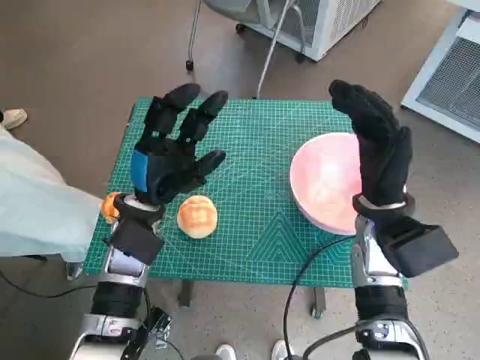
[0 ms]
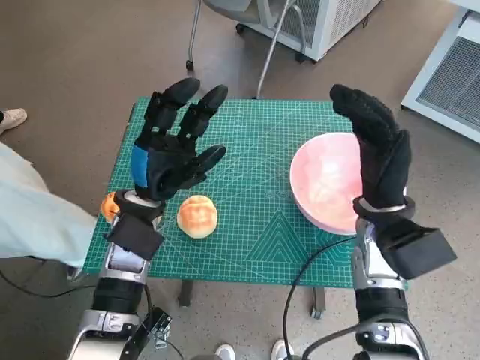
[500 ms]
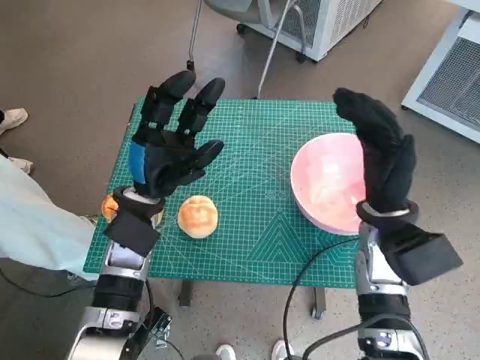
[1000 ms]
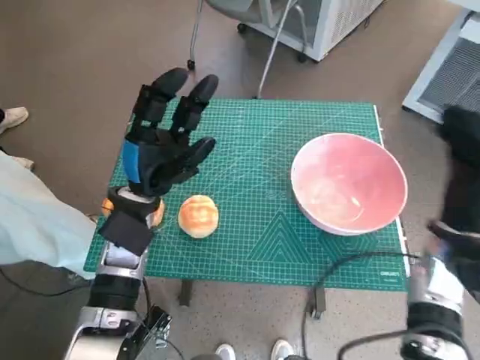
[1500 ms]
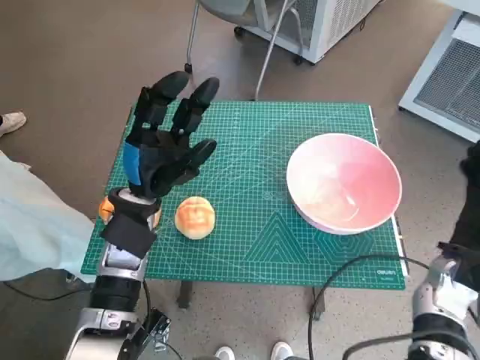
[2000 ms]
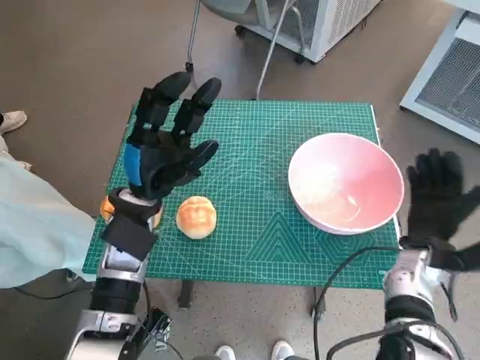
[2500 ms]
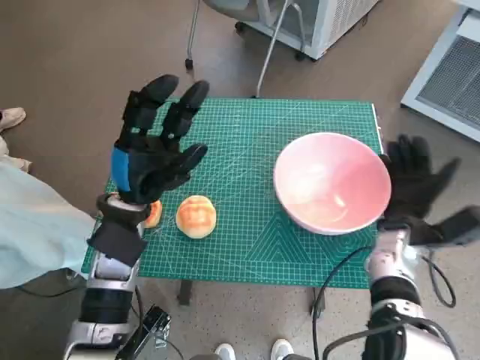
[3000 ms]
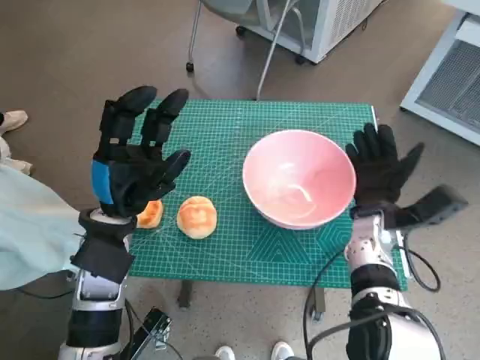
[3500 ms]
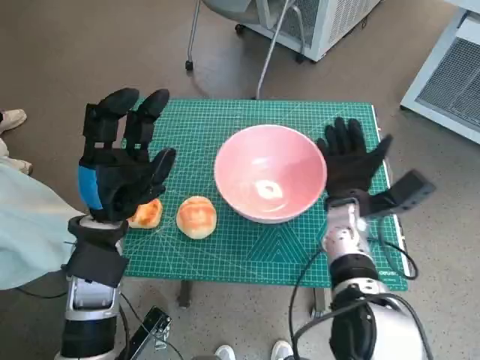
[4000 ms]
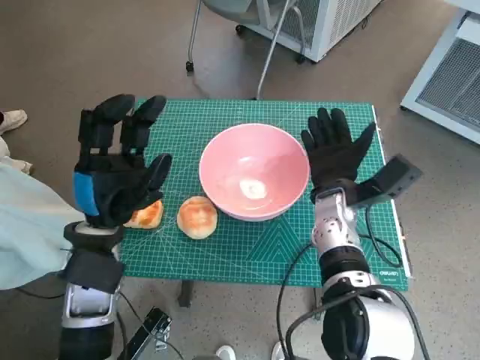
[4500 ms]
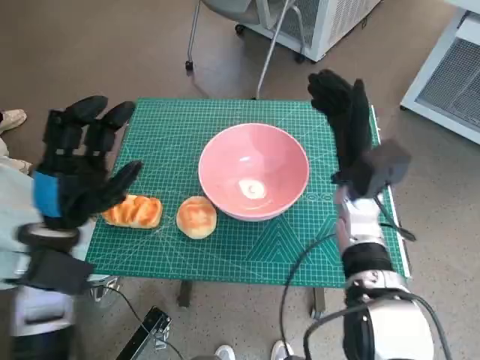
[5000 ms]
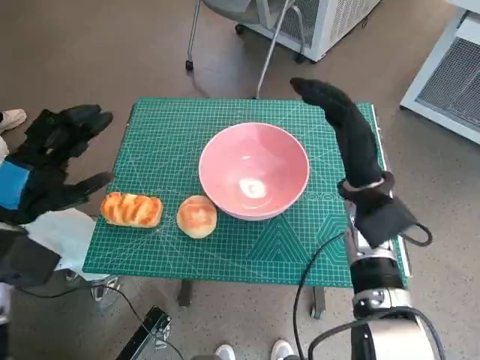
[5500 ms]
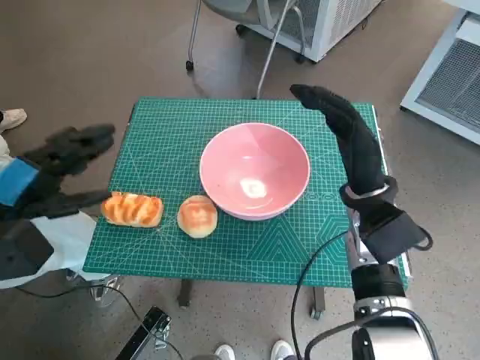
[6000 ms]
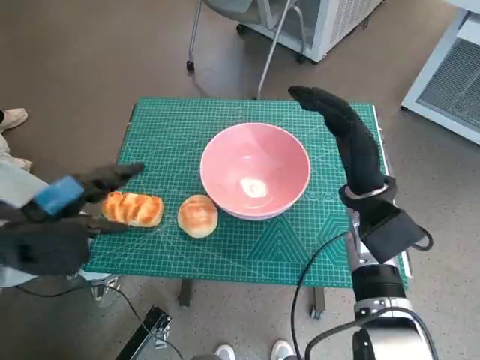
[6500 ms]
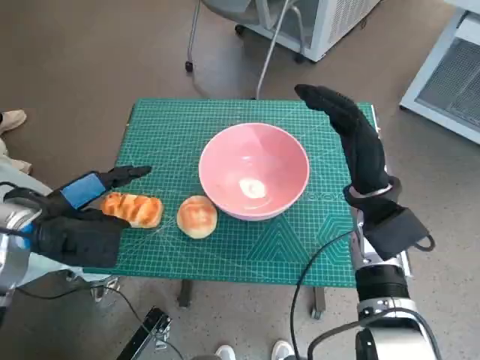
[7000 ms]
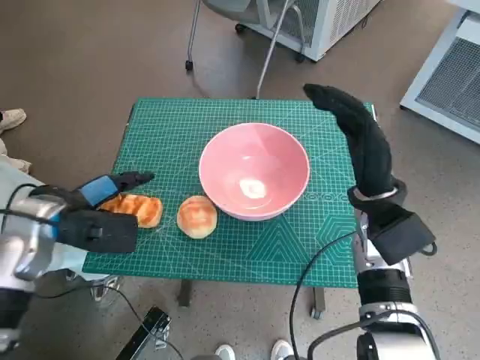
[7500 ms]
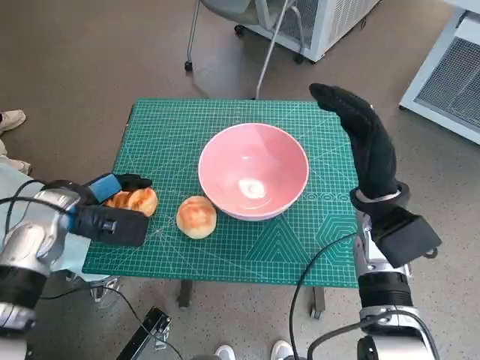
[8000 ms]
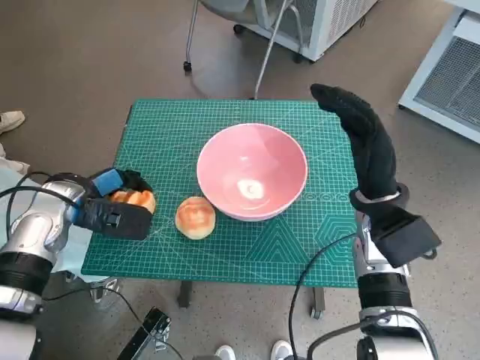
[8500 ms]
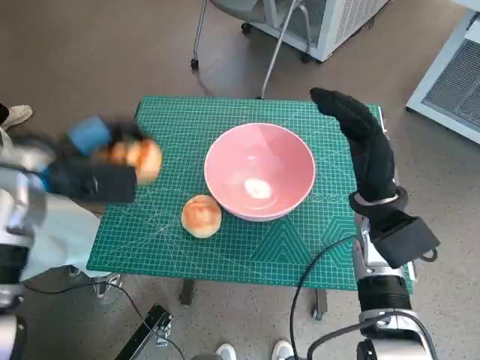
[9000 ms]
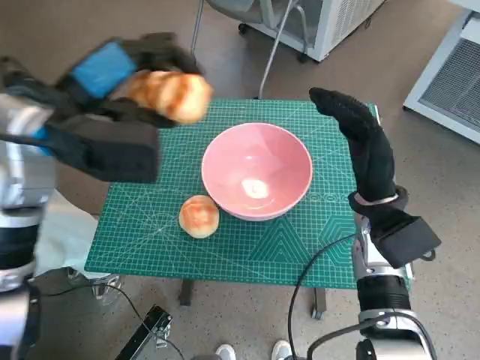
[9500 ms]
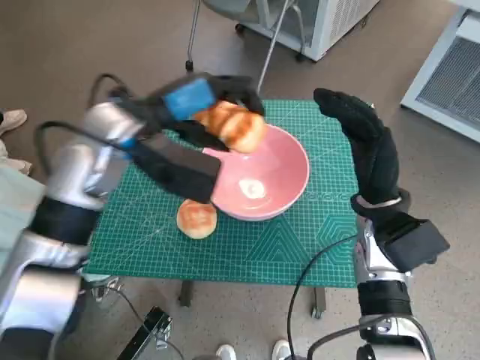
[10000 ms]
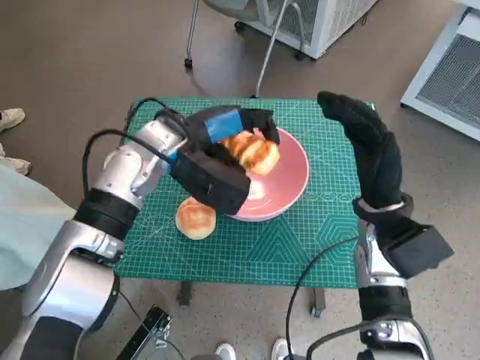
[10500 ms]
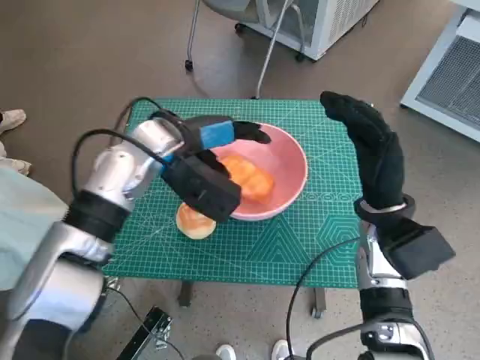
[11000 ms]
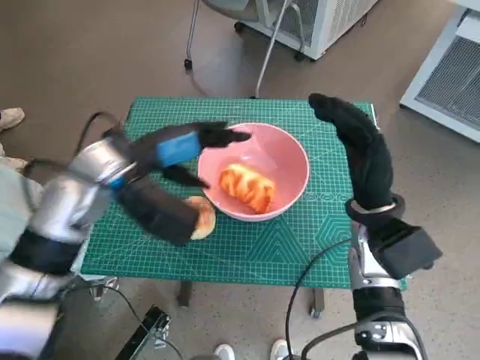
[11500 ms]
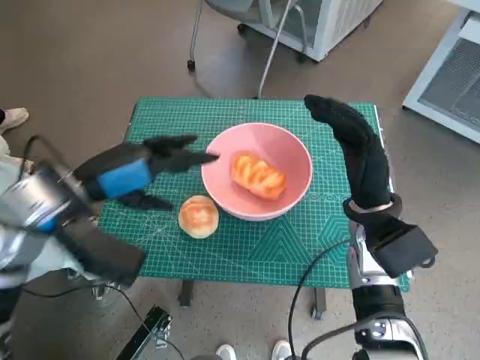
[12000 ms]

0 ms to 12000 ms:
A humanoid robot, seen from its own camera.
Task of the whole recording: Push the bowl to the center of the table and put the bread into the bowl.
Step, 0 ms to 4500 ms: Move the pink bowl to the center of table with right hand.
Step, 5000 ms to 8000 ms: Grasp the long bread with left hand.
Step, 8500 ms to 11000 ms: Place the long bread in pink bowl with left hand.
2000 ms to 4000 ms: The right hand shifts about 15 cm to the left and forward. The left hand shifts by some 5 cm.
4000 ms to 6000 ms: The right hand shifts roughly 5 cm upward. Meanwhile the left hand moves to the left and upward, about 15 cm.
6000 ms to 8000 ms: The left hand shifts roughly 10 cm forward and downward.
8000 ms to 10000 ms: The left hand travels to the right and upward by approximately 15 cm.
10000 ms to 12000 ms: The left hand goes about 10 cm backward and to the left.

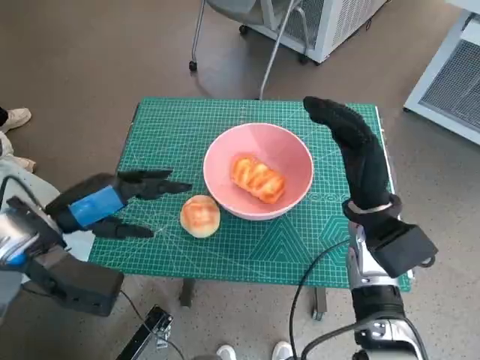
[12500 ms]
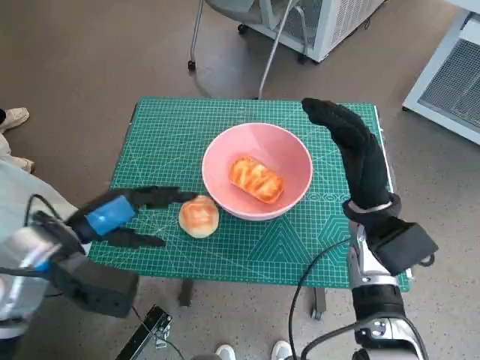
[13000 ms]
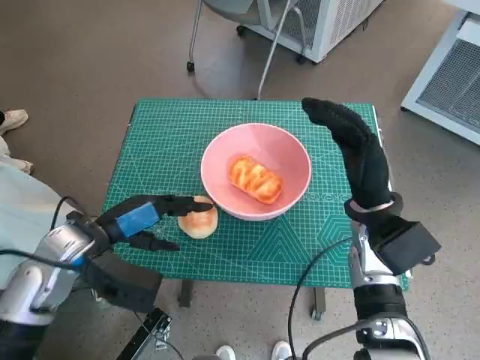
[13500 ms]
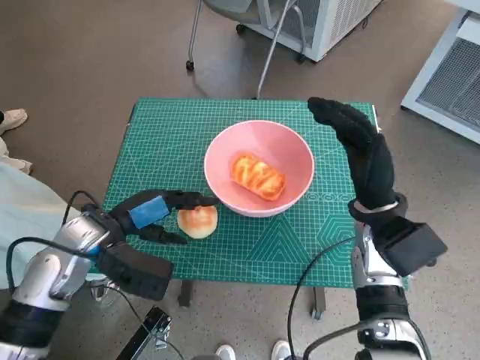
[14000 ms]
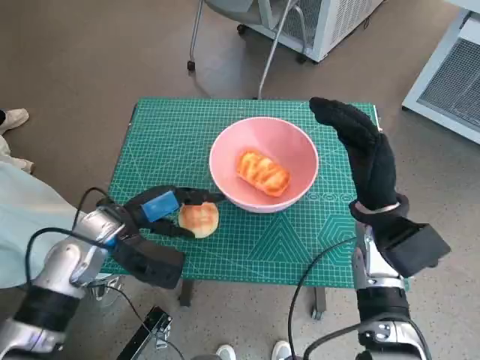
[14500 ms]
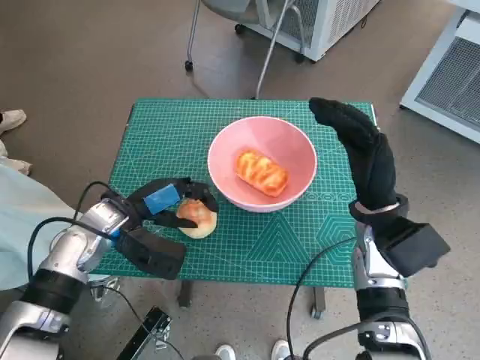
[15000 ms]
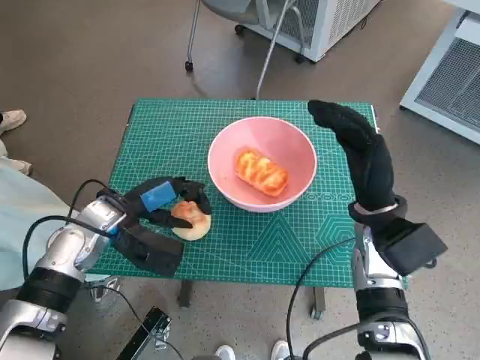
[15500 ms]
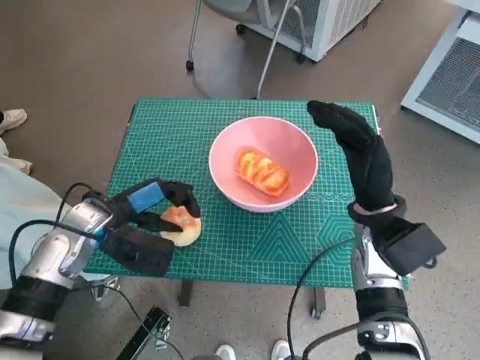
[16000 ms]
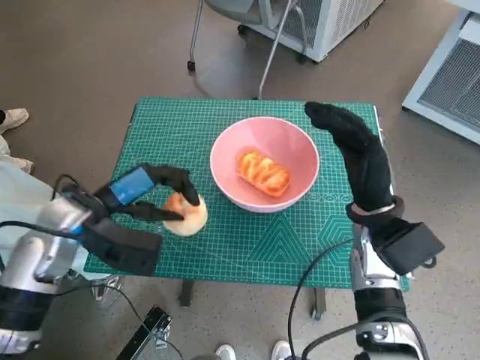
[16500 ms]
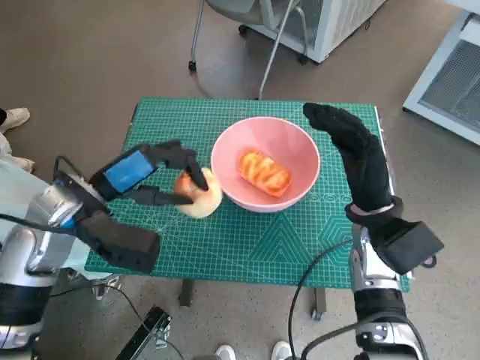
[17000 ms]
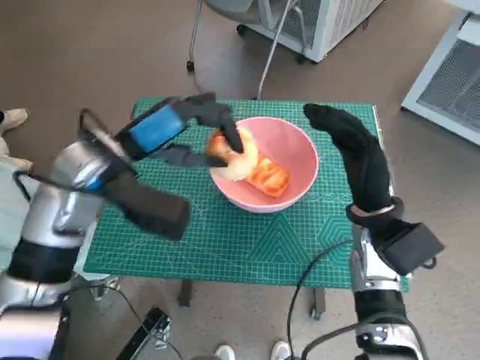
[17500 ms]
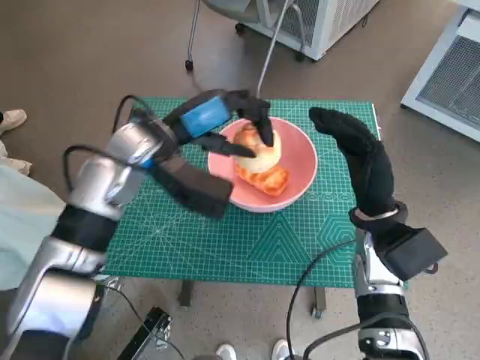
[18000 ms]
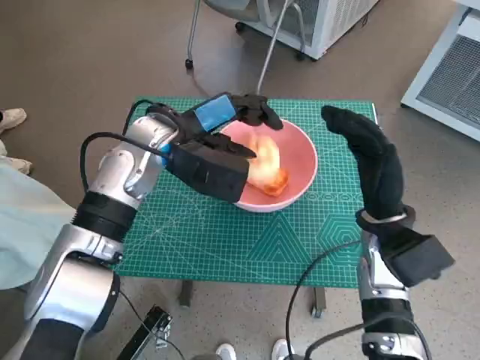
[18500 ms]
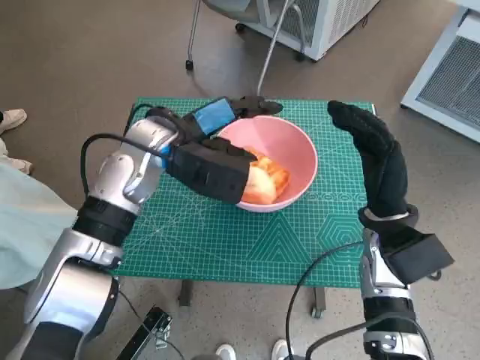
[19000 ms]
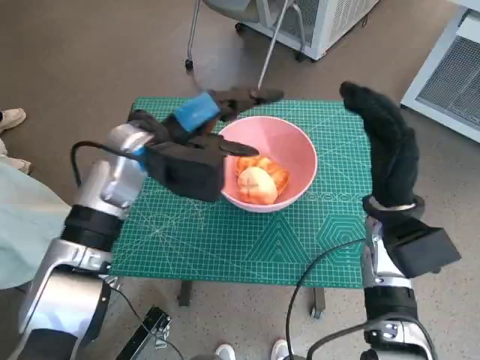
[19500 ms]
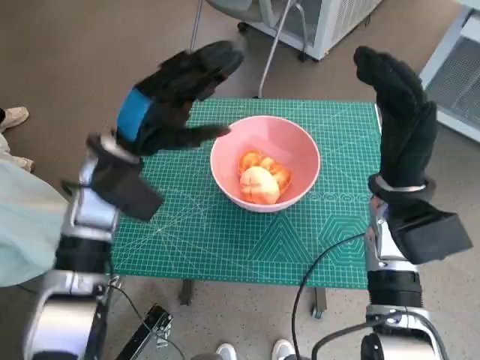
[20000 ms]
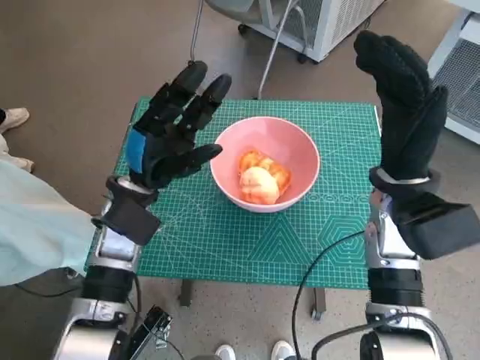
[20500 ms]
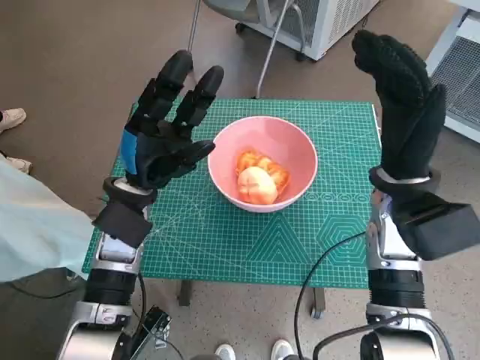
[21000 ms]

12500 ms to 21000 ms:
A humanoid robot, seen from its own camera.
Task of the whole recording: Push the bowl to the center of the table and put the bread into the bowl.
Step, 12500 ms to 15000 ms: Grasp the round bread with left hand.
Step, 15500 ms to 19000 ms: Place the round bread in pink bowl with left hand.
12500 ms to 14500 ms: The left hand is displaced downward by approximately 10 cm.
14500 ms to 16500 ms: The hands make only small movements.
16500 ms to 19000 ms: The left hand shifts some 15 cm to the right, forward and upward.
19000 ms to 21000 ms: The left hand moves downward and backward, about 10 cm; the right hand goes approximately 5 cm upward.

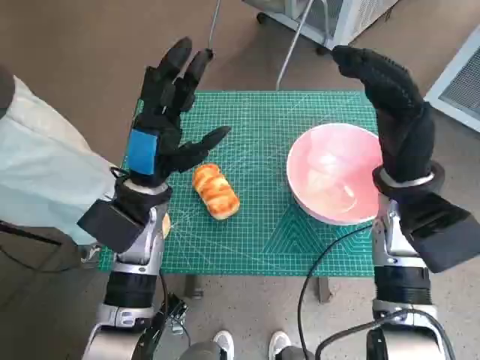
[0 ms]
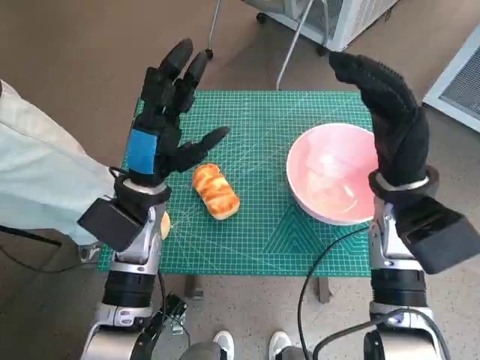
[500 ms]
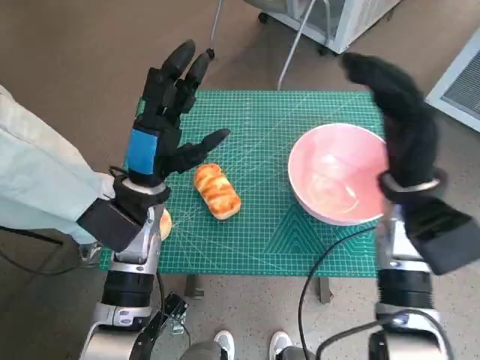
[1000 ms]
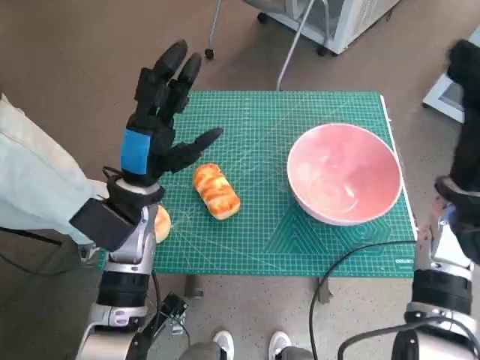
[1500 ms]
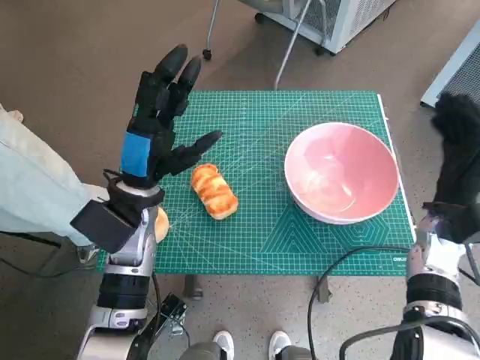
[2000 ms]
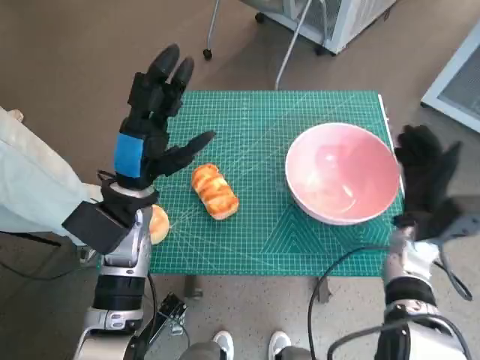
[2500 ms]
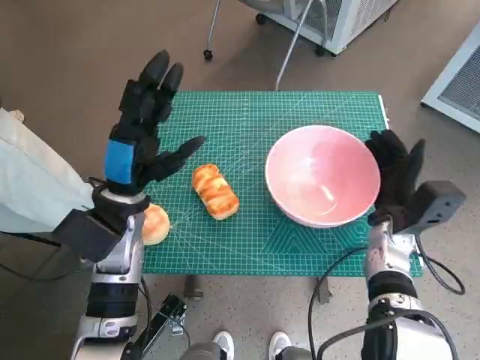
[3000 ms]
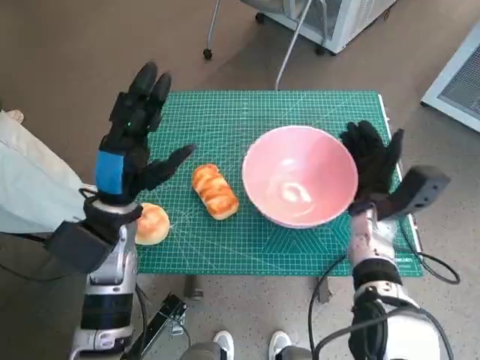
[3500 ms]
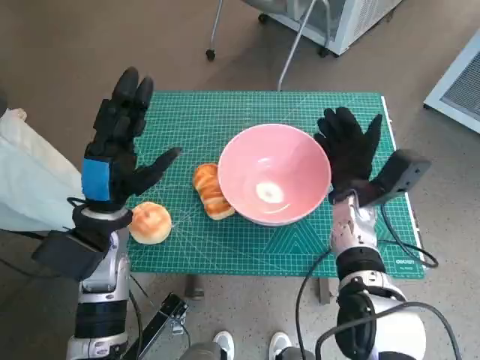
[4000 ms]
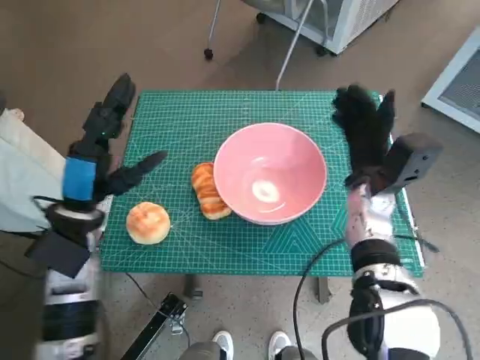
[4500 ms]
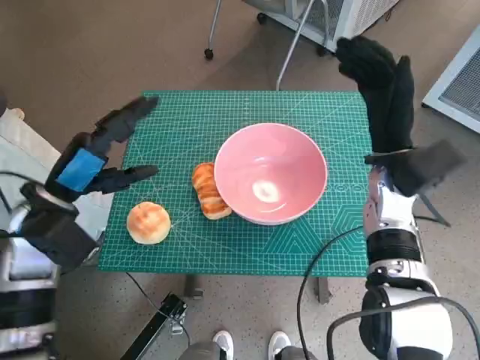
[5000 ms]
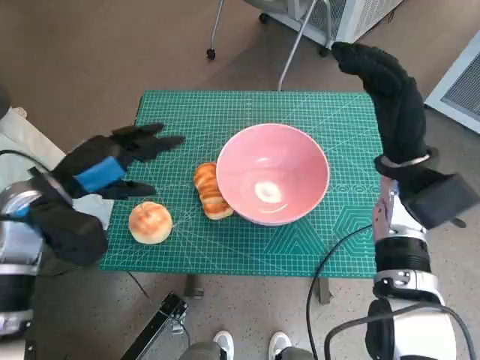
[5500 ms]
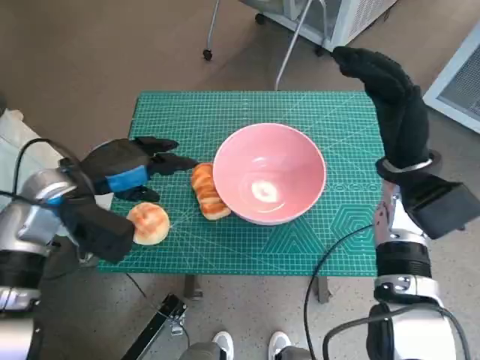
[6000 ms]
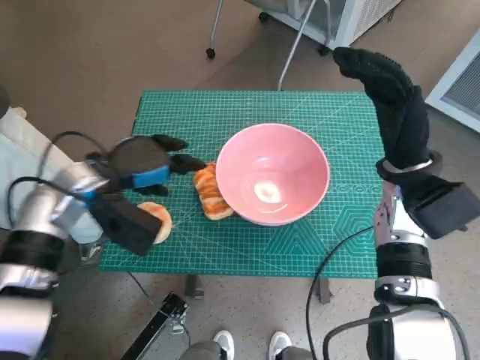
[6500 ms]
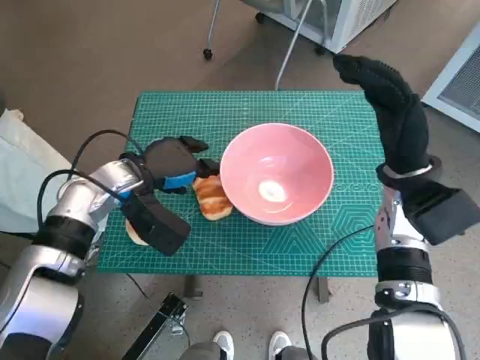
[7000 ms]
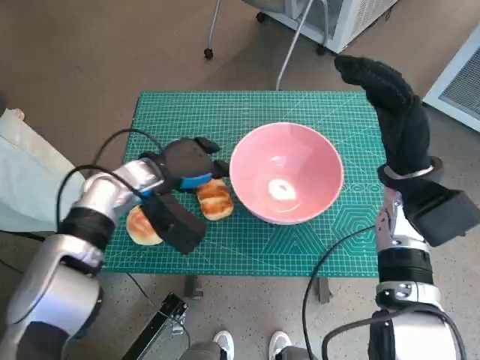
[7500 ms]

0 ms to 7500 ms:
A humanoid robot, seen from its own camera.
Task of the whole recording: Push the bowl to the center of the table and put the bread into the bowl.
Step, 0 ms to 4000 ms: Move the pink bowl to the center of table with right hand.
2000 ms to 4000 ms: The right hand goes approximately 10 cm to the left; the left hand moves approximately 5 cm.
4000 ms to 5500 ms: The right hand moves upward, roughly 10 cm, while the left hand travels to the left by approximately 5 cm.
5500 ms to 7500 ms: The left hand moves to the right, forward and downward, roughly 15 cm.
